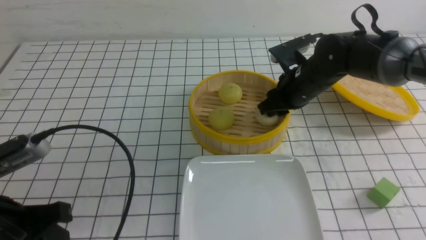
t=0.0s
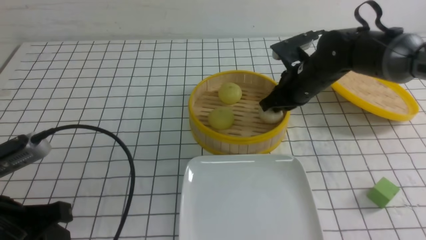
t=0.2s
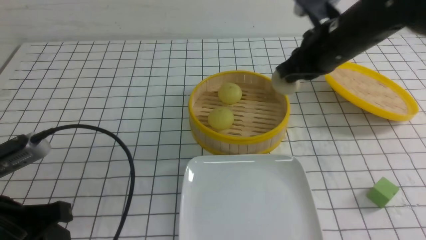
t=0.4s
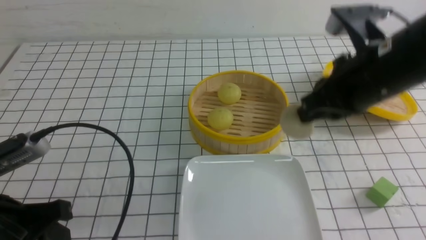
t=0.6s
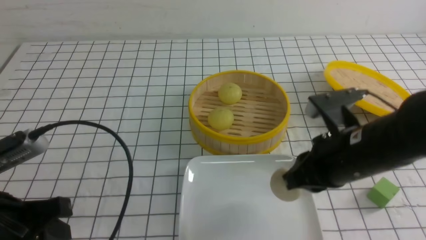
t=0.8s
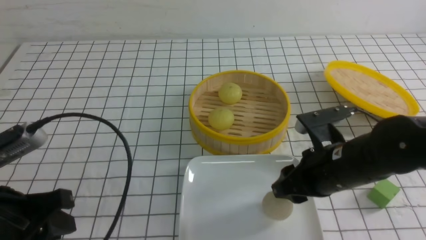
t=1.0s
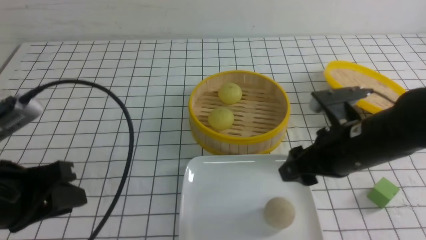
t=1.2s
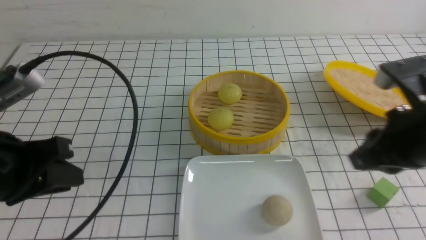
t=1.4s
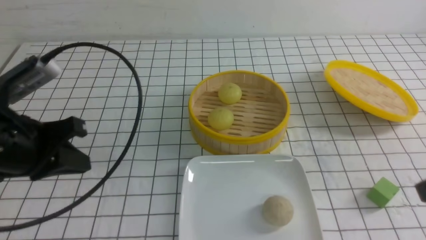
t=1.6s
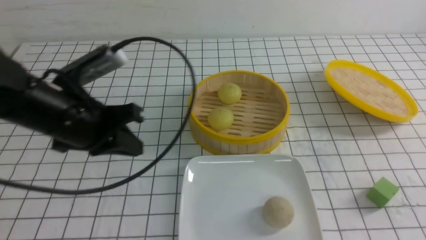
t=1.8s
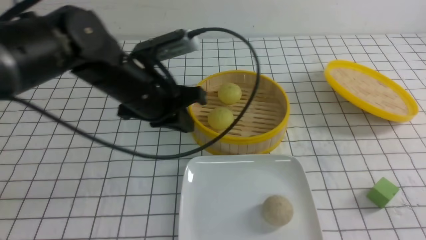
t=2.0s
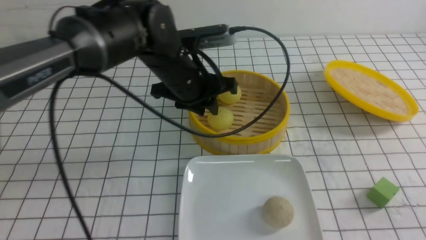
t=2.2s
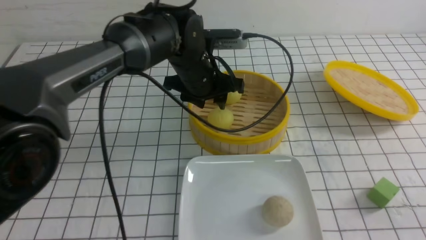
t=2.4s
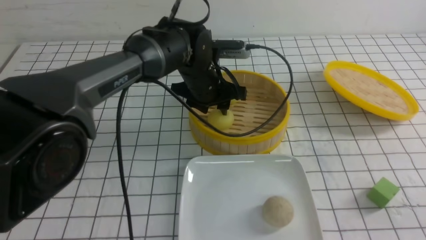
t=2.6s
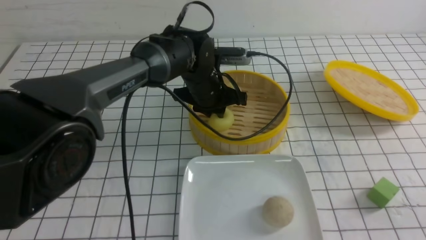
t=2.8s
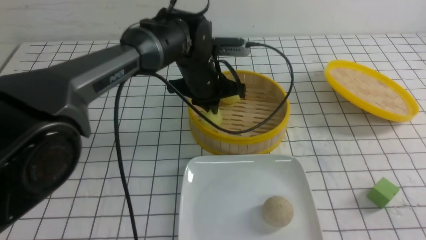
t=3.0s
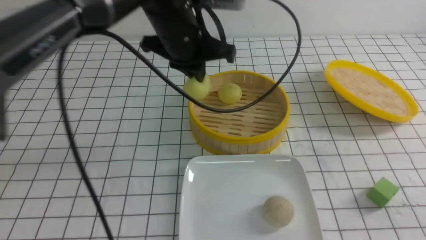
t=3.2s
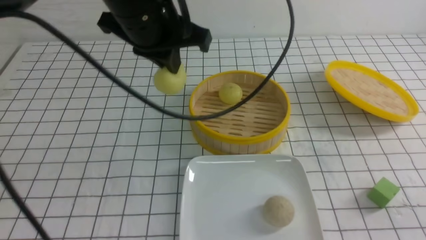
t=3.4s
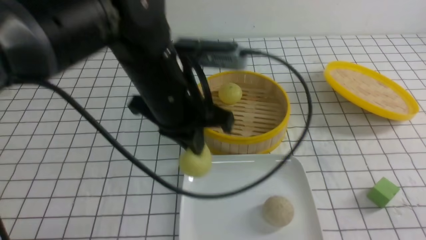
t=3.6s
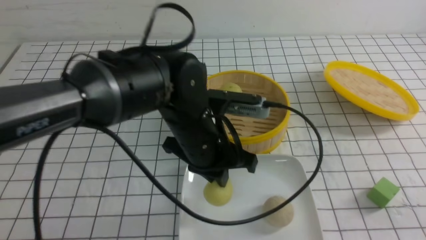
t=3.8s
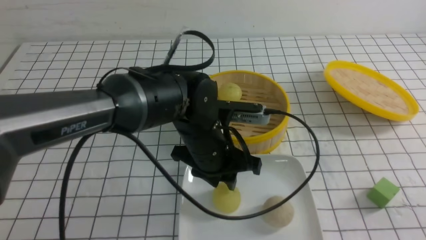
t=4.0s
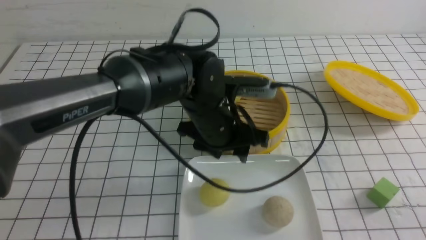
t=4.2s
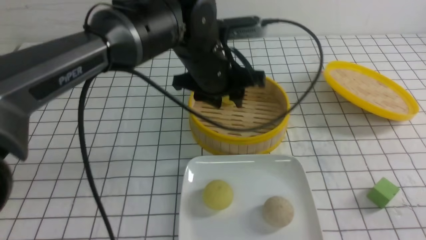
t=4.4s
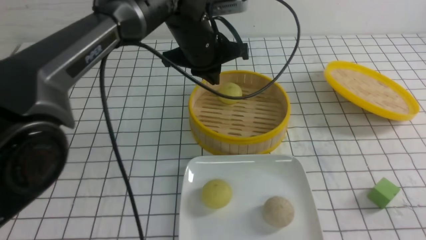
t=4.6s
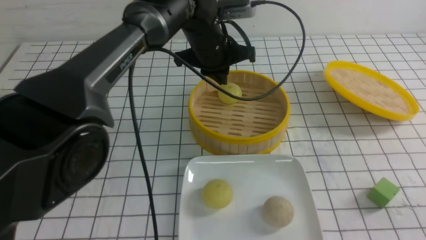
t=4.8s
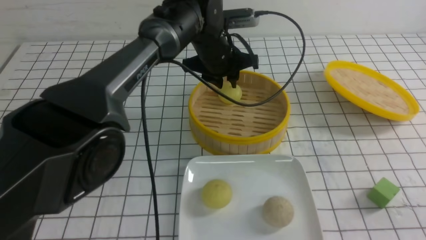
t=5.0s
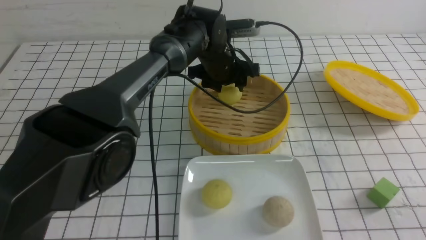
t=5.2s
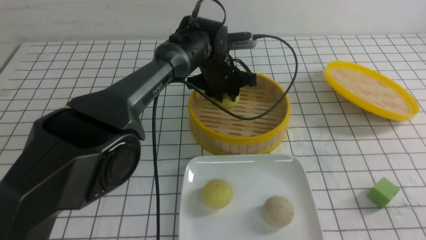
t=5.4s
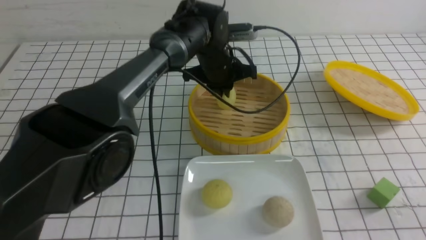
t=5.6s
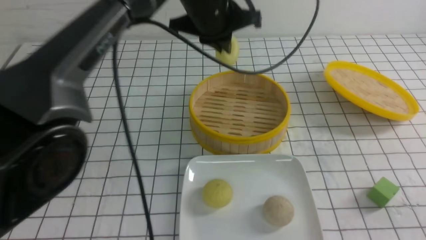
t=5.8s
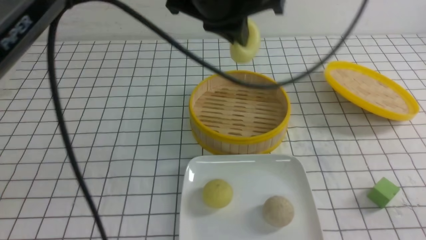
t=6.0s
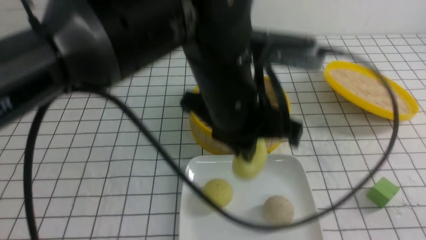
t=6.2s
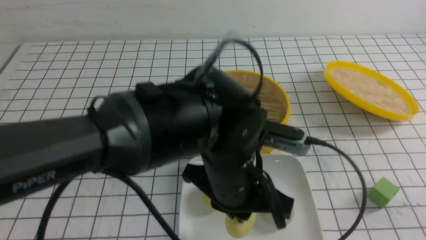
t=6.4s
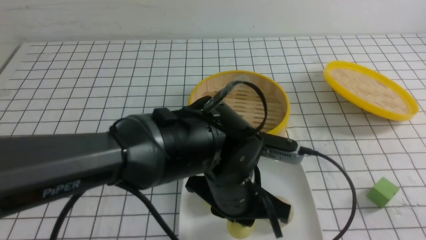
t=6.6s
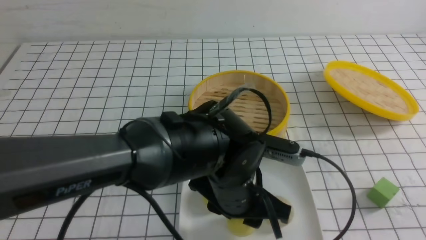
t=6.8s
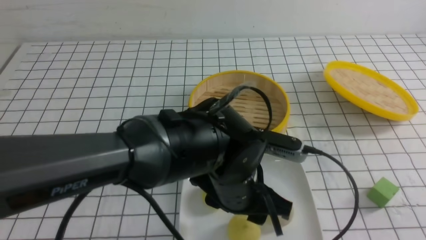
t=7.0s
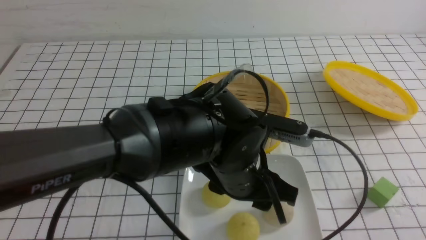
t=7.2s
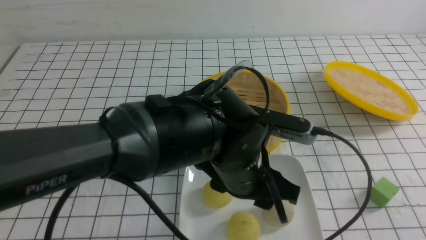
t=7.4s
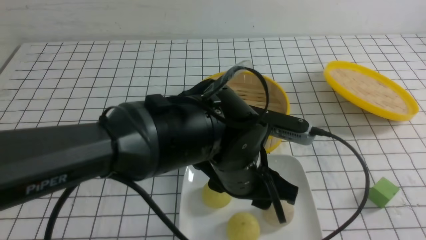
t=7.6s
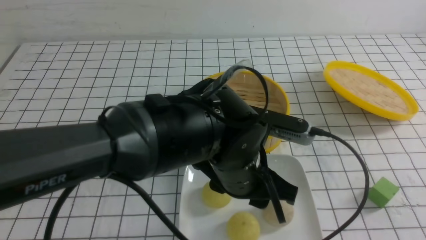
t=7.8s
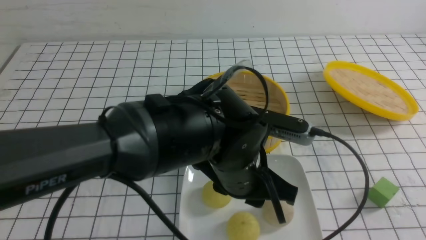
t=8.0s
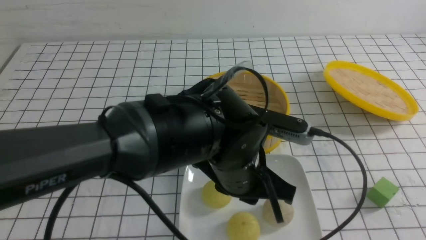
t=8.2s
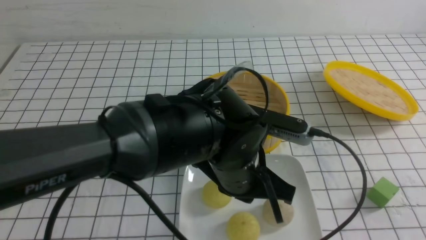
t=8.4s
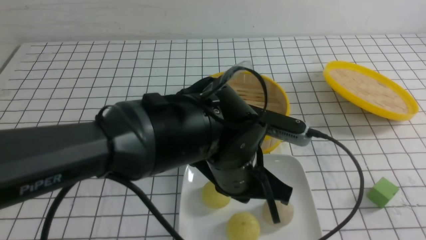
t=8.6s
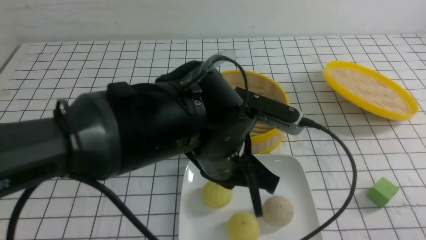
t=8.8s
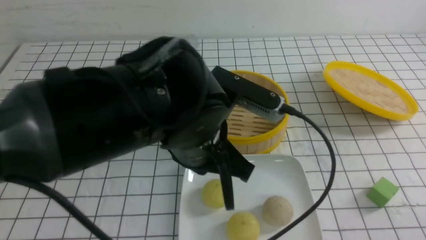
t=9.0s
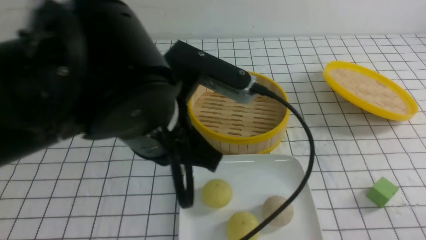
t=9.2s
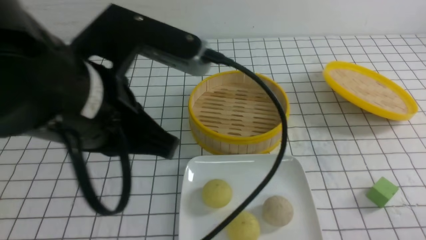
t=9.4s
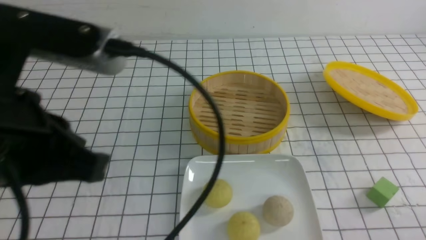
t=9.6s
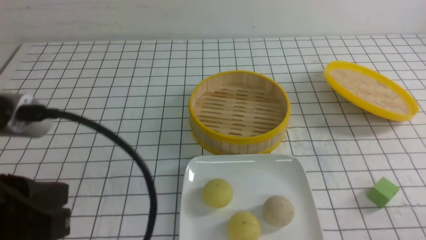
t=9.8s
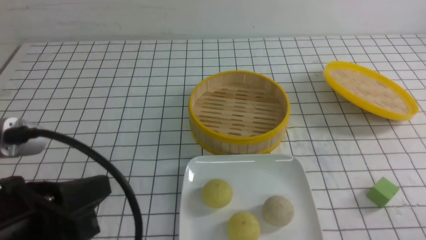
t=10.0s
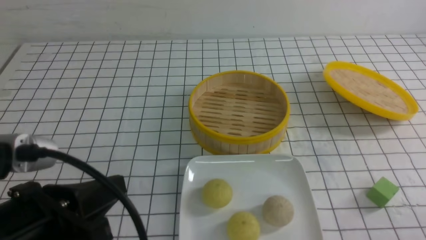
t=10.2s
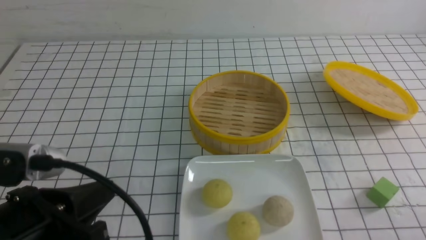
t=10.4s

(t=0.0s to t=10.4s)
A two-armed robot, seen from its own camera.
Step, t=0.4s - t=1.2s: use the right arm to put the steamed stuffed bun into the plate.
Step, t=1.4s - t=3.0s: use the left arm to grab the steamed stuffed bun that is closest to it.
Step, t=3.2s - t=4.2s: use the left arm to put the steamed stuffed bun into the plate.
Step, t=4.4s - t=5.6s: use the left arm to grab the steamed stuffed bun that is closest to it.
Step, t=5.8s - t=7.2s: use the left arm to put the steamed stuffed bun into the plate.
t=0.0s - t=1.4s: The left gripper ends up about 5 cm from where it was; the right gripper shifts about 20 cm backward, and closes, then reopens.
t=1.4s - t=3.0s: The left gripper heads forward and to the right, covering roughly 30 cm, and opens, then closes again. Meanwhile the right gripper goes some 15 cm backward and to the right, and closes its fingers.
t=3.0s - t=4.4s: The left gripper swings up and down, roughly 15 cm each way, with 2 reversals, and opens up.
t=4.4s - t=6.0s: The left gripper heads upward and backward, covering roughly 10 cm, and closes its fingers.
t=6.0s - t=7.4s: The left gripper moves downward and backward, some 15 cm, and opens. Meanwhile the right gripper travels backward by some 10 cm, and closes its fingers.
t=7.4s - t=9.0s: The left gripper moves upward and to the left, some 10 cm, and closes its fingers. Meanwhile the right gripper heads downward, covering approximately 10 cm.
t=9.0s - t=10.4s: The left gripper heads to the left and backward, covering approximately 20 cm.

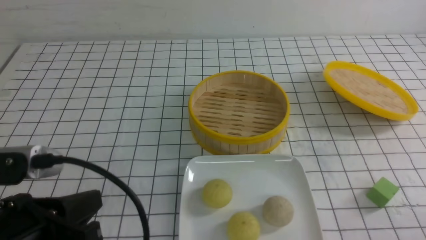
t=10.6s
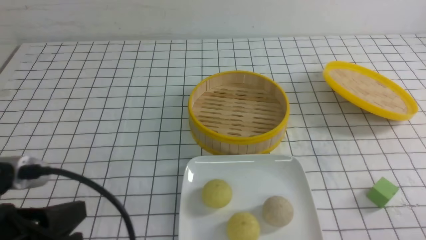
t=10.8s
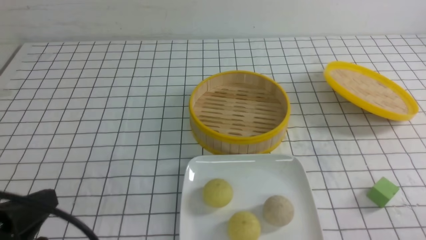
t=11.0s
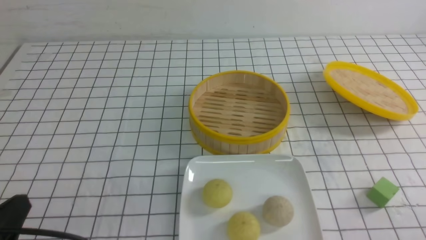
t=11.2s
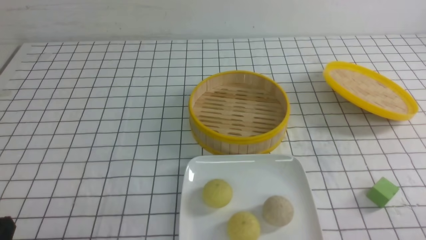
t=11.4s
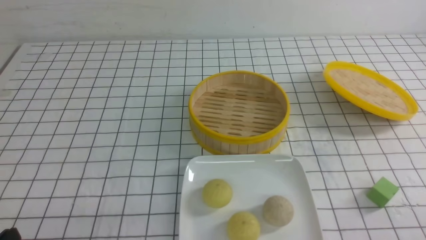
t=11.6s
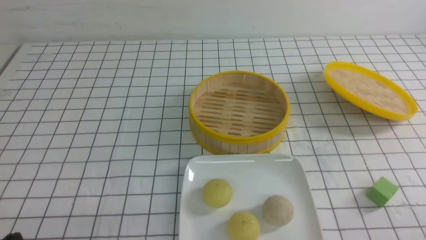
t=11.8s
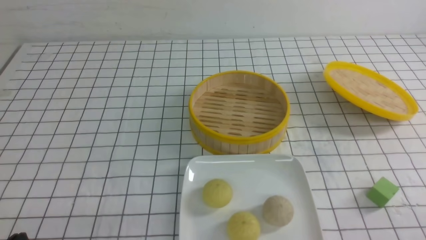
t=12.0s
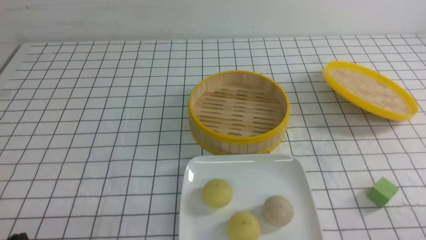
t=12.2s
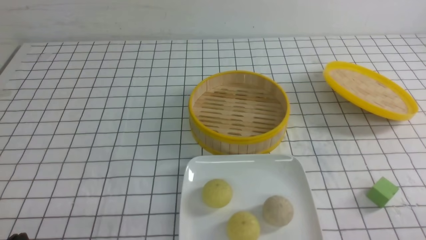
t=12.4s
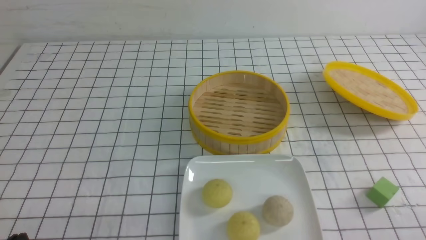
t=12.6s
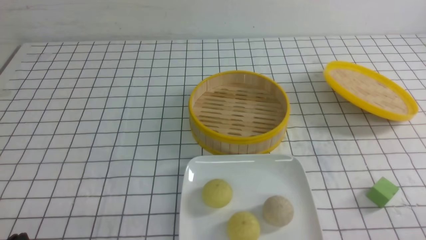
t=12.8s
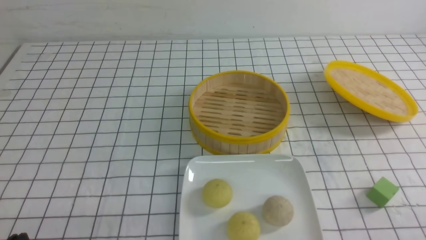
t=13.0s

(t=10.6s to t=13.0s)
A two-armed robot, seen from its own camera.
t=10.6s - t=11.8s: The left gripper travels downward and to the left by roughly 10 cm.
t=11.8s - t=13.0s: Both grippers stay put.

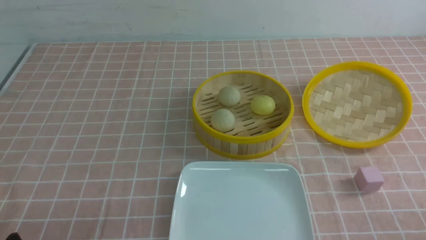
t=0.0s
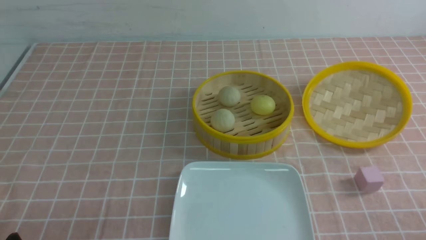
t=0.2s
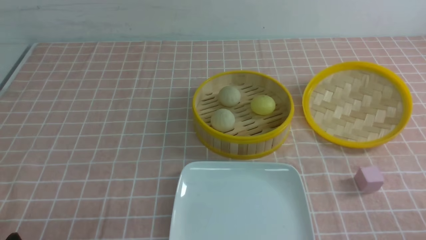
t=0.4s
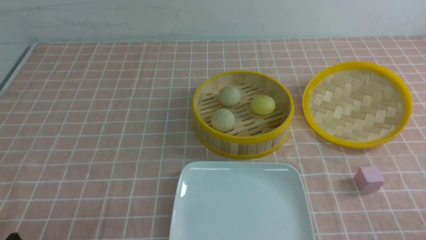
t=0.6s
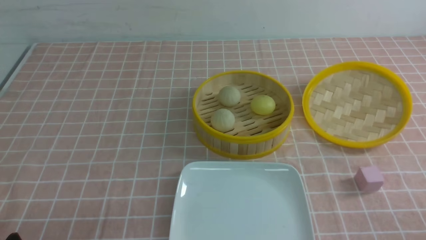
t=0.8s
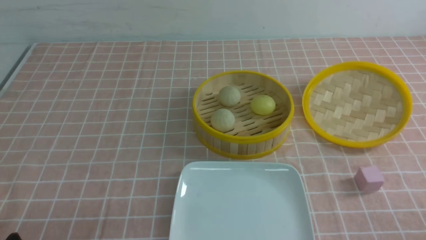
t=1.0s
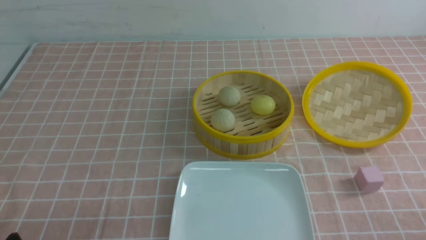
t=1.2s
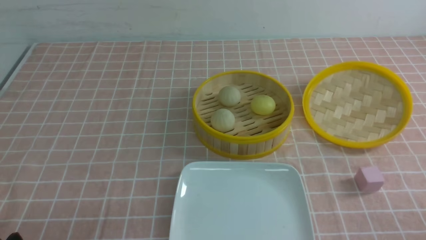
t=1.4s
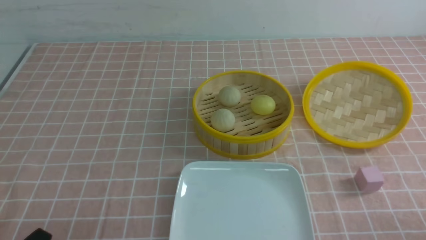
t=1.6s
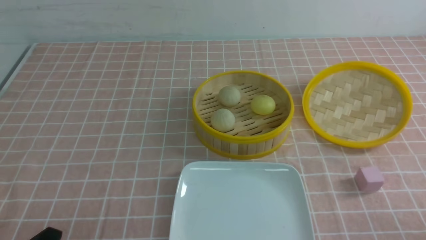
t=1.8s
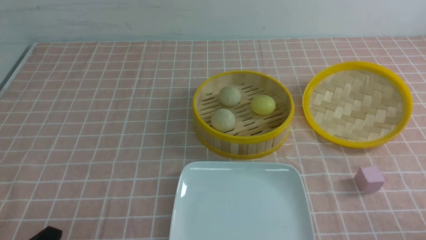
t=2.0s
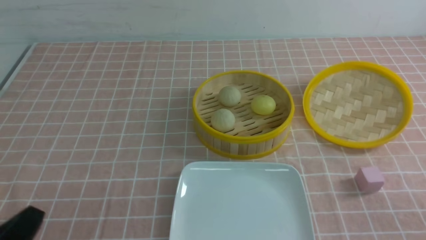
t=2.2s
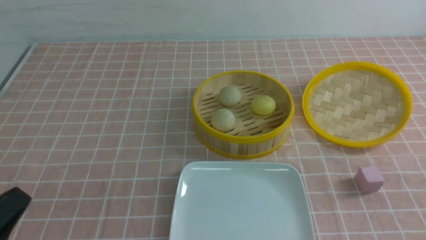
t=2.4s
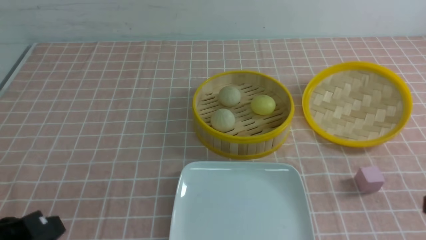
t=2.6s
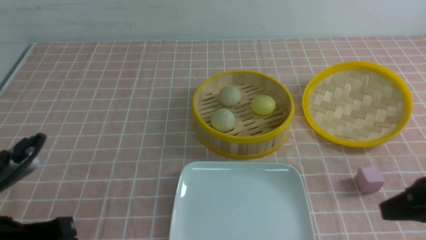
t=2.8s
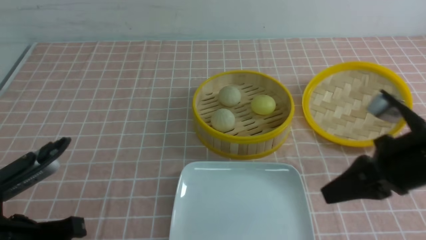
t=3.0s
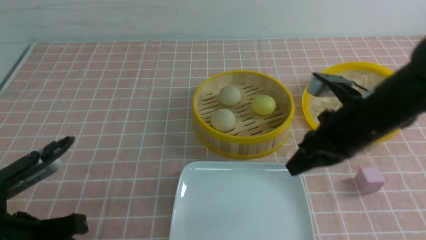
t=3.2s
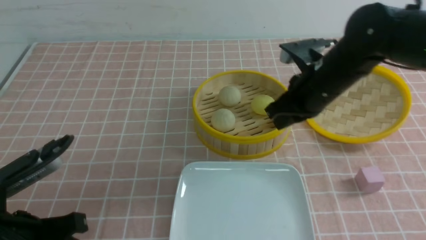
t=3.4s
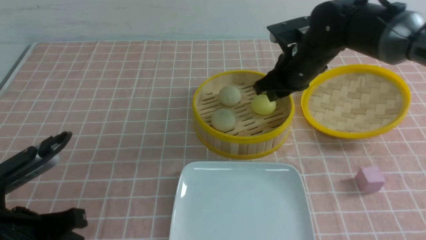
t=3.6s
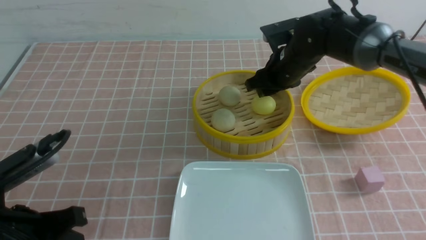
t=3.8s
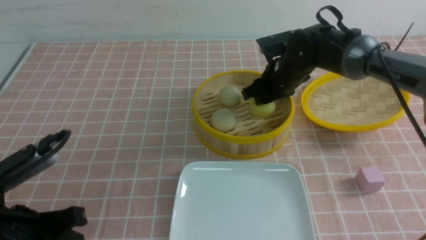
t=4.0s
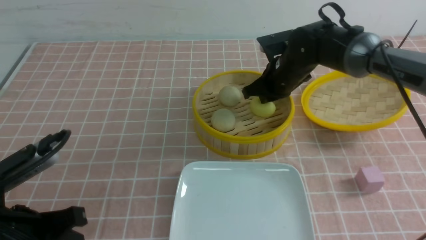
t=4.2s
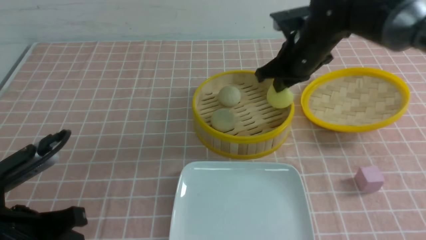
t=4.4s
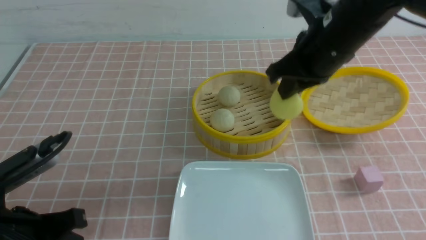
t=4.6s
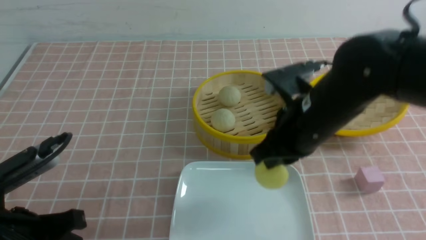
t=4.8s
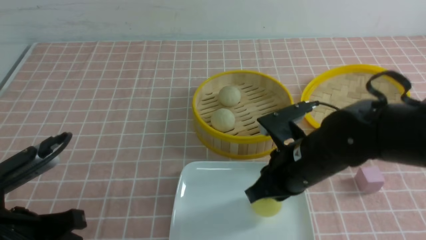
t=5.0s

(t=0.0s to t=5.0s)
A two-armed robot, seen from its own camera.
Step, t=0.0s - t=4.0s: use the right arm to grab the steamed stuffed bun that is closest to it.
t=1.6s - t=3.4s: The left gripper goes about 10 cm forward and upward, and closes, while the right gripper shifts about 35 cm forward and to the left, and closes up.
t=3.4s - t=5.0s: The right gripper shifts some 10 cm backward and downward, and opens, then closes once more.
